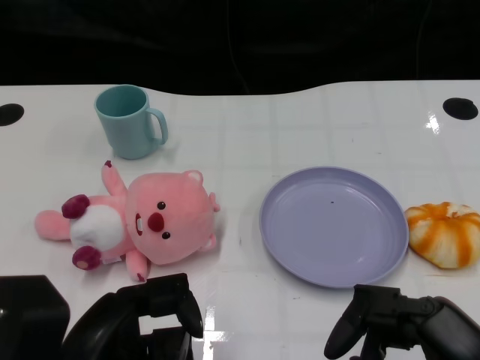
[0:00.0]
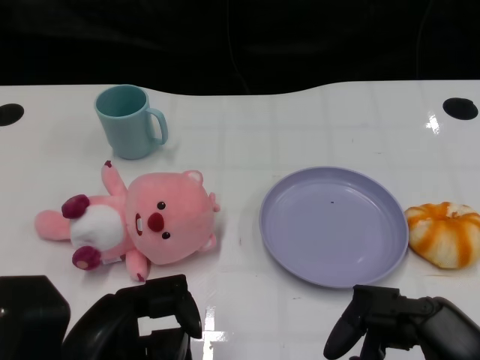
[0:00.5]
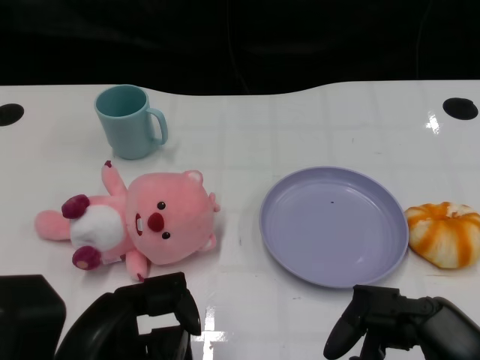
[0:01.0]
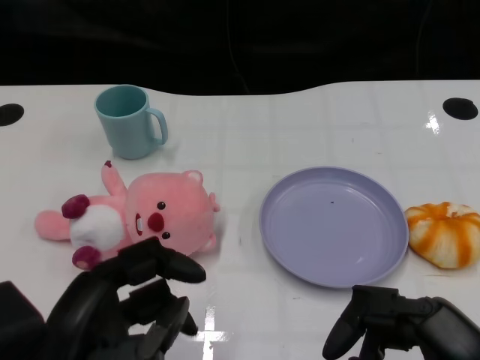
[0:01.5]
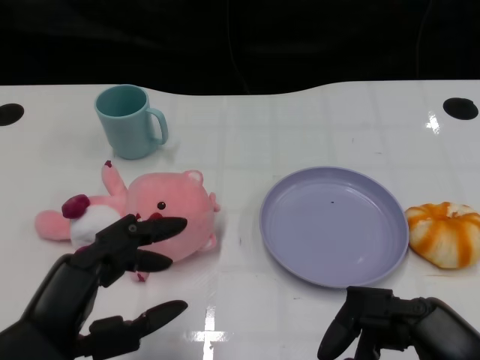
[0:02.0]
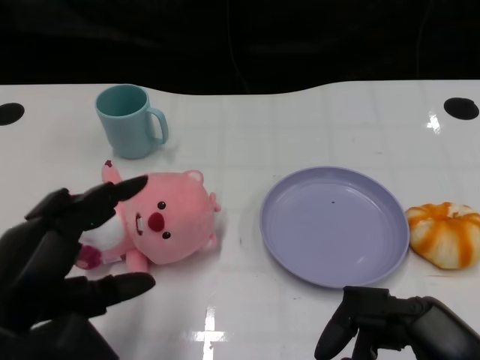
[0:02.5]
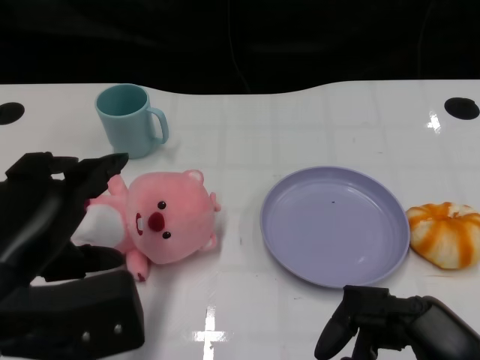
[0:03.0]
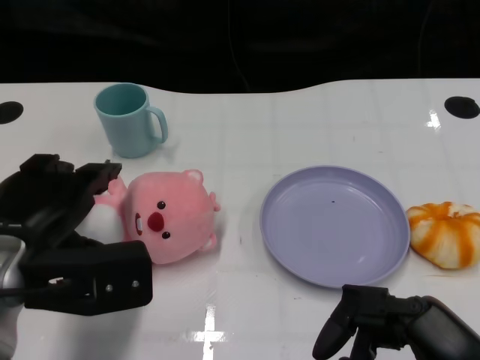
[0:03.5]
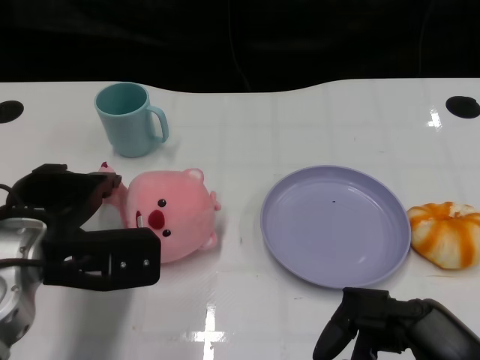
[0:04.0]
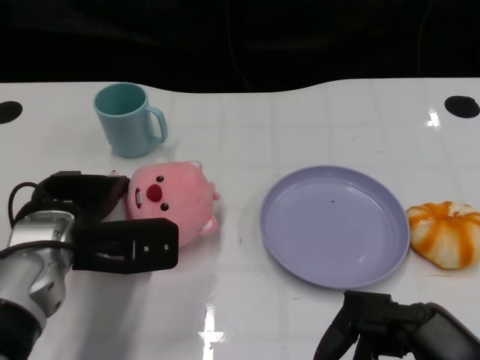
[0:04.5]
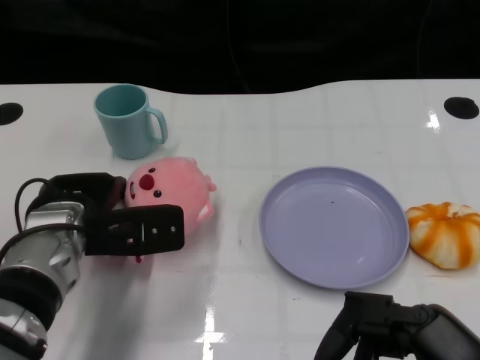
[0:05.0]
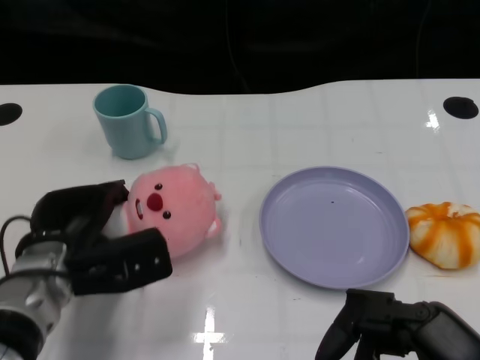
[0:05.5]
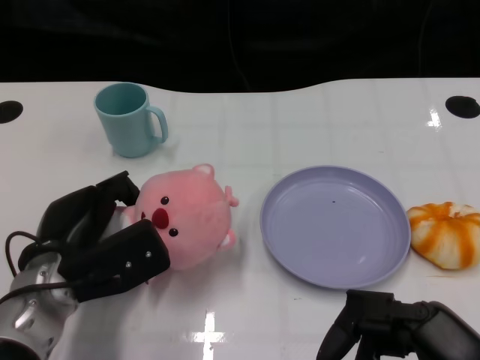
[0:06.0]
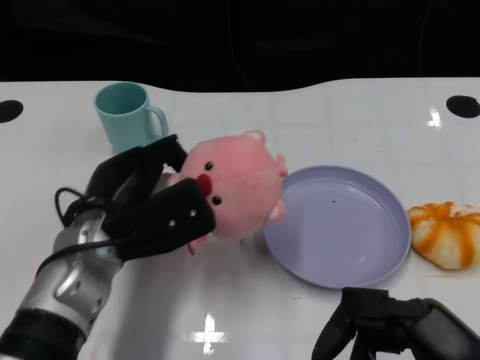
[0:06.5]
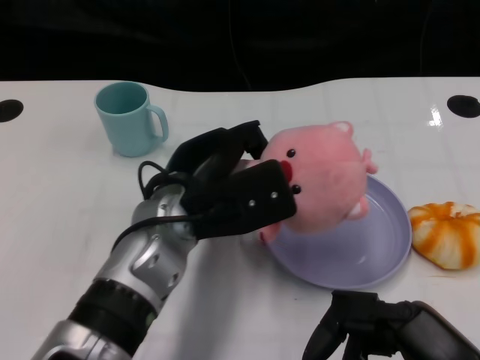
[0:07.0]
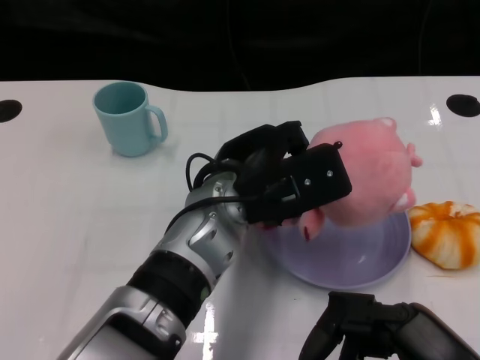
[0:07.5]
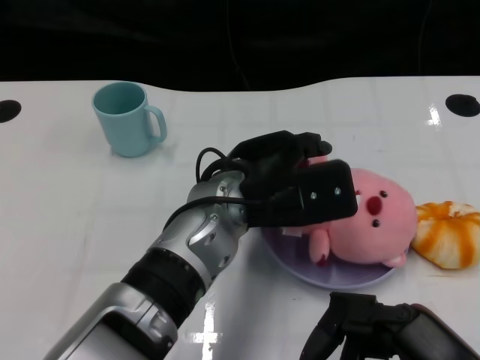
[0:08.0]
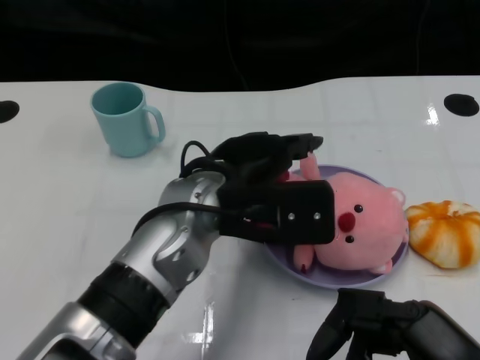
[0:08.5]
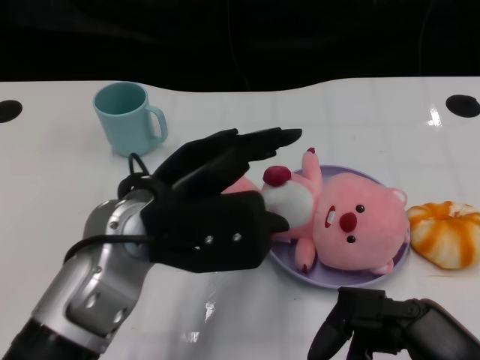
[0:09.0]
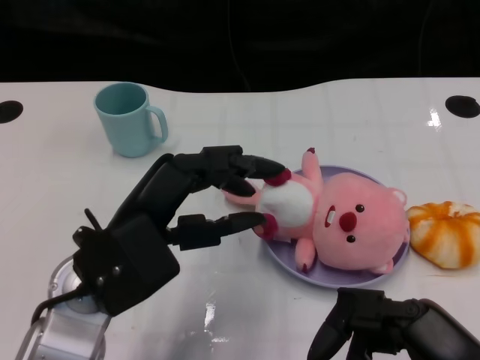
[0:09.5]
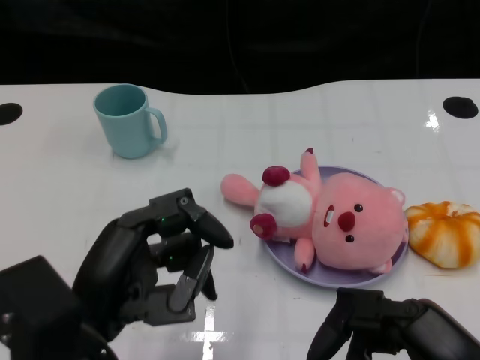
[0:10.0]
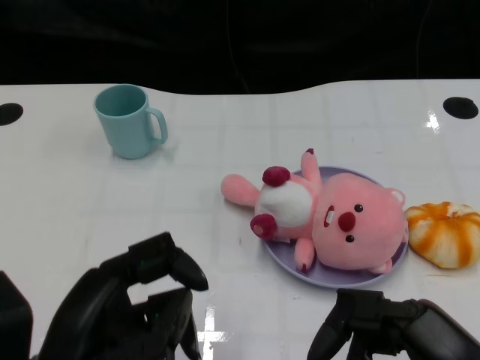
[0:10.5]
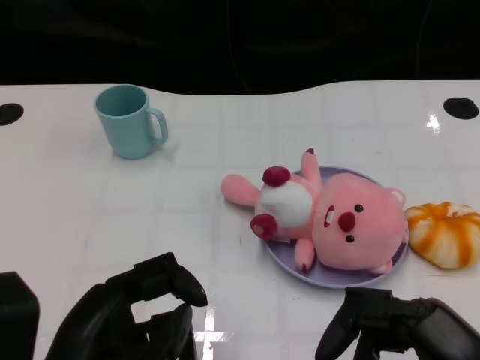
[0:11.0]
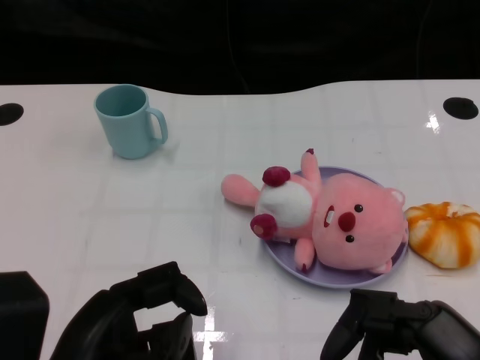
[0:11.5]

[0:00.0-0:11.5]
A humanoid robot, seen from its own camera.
Task of the whole recording: Pick up the doll on one side of the plate and place it into the plate.
Step, 0:01.0 to 0:06.0: Grasp the pink doll with the left gripper.
Step, 0:06.5 to 0:08.0: Place the pink doll into the plate with the left gripper.
0:02.0 to 0:04.0: The left hand shifts roughly 15 cm forward.
0:04.0 to 0:06.0: The left hand moves downward, roughly 5 cm.
0:06.0 to 0:07.5: The left hand heads to the right and upward, covering about 20 cm.
0:07.5 to 0:09.5: The left hand moves to the left and backward, some 15 cm.
0:09.5 to 0:11.5: The left hand moves backward, approximately 10 cm.

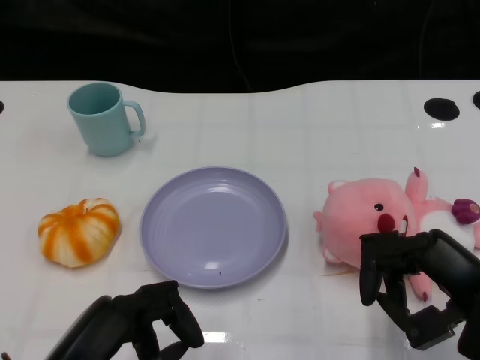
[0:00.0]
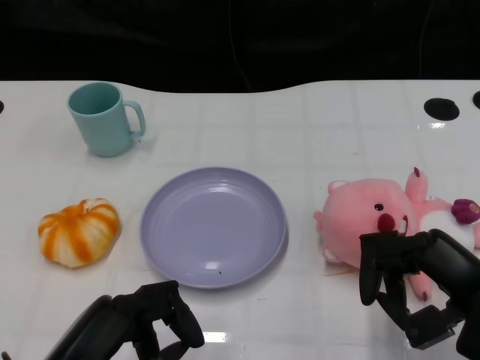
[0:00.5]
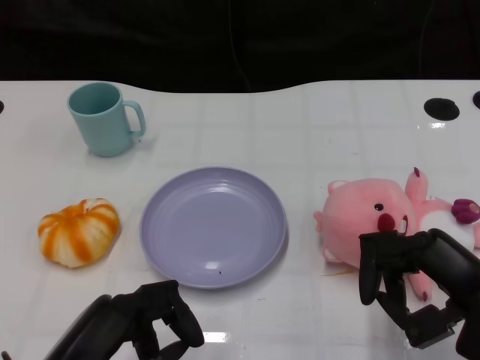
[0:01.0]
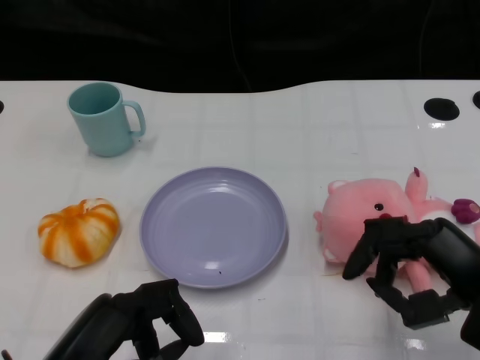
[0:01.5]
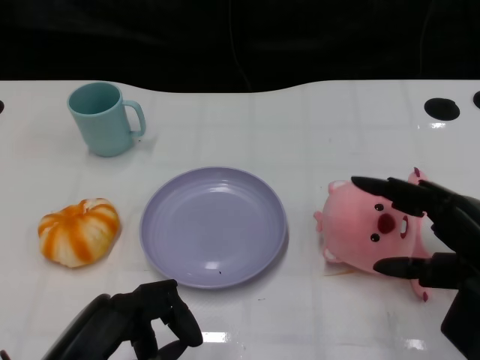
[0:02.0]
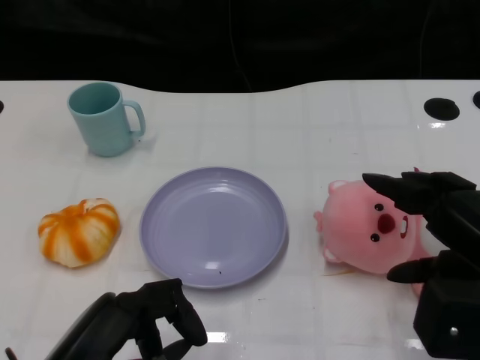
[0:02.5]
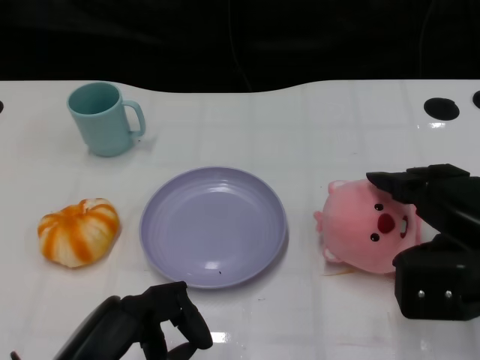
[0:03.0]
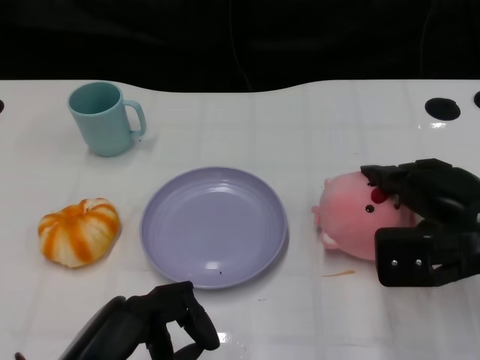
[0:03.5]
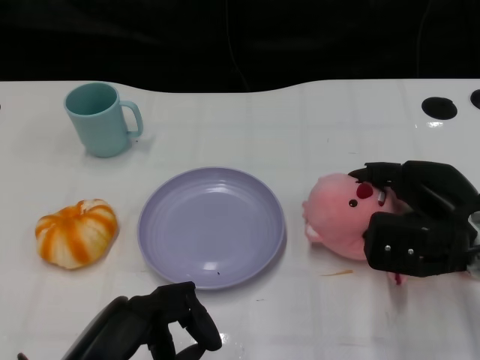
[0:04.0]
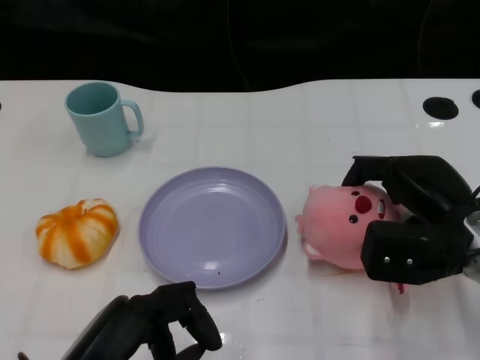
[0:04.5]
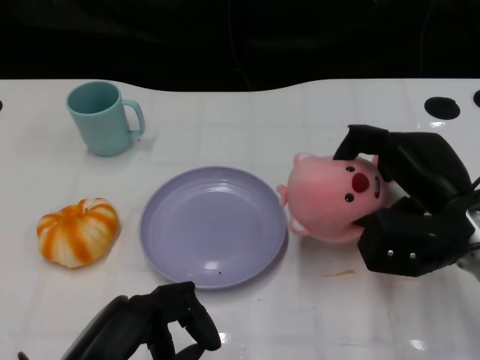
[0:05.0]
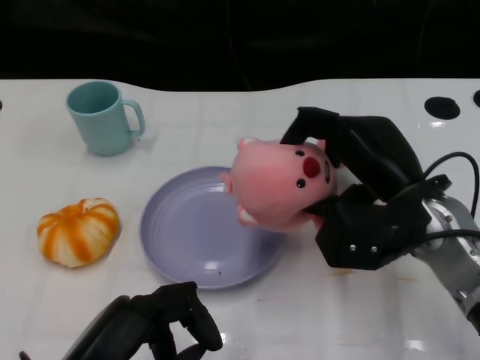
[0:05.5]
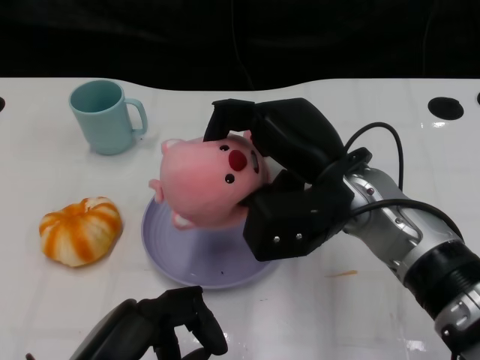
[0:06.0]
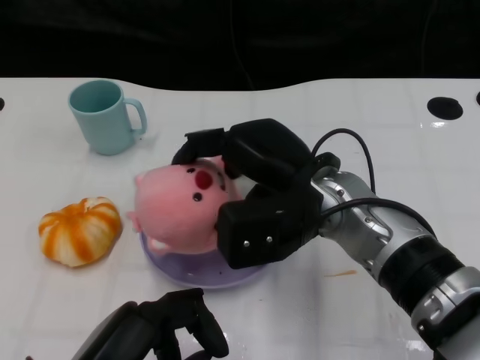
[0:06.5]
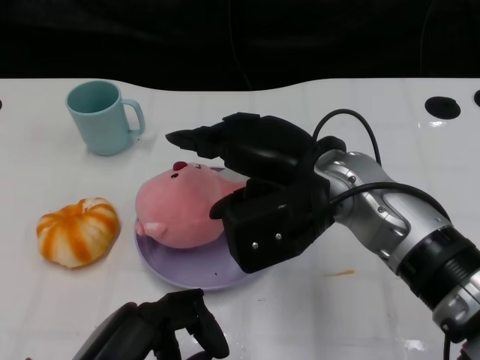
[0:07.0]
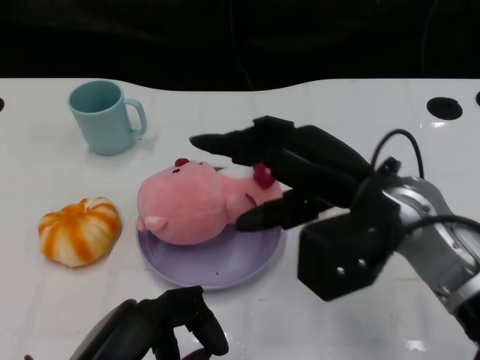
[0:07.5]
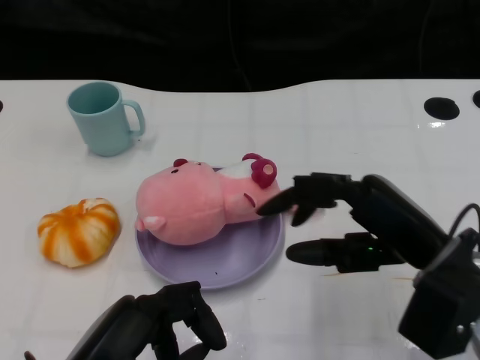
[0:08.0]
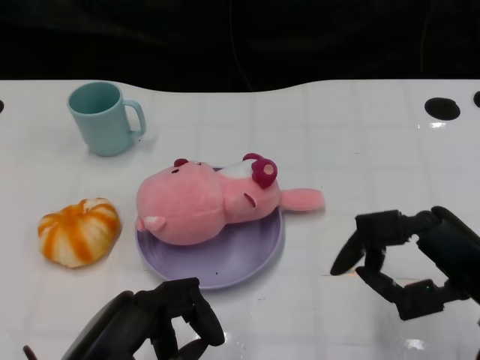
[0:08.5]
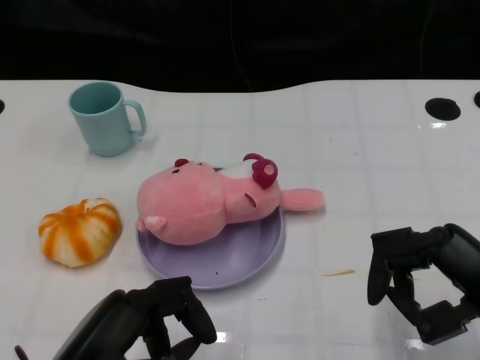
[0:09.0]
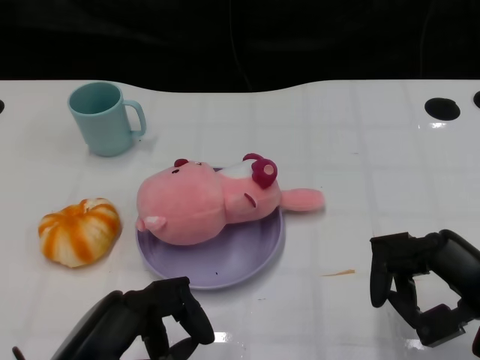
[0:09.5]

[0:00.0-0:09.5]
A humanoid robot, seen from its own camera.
Task of the whole recording: Pick up the doll on the other side of the plate and place it into the plate.
Step, 0:01.5 to 0:05.5: Grasp the pink doll with the right gripper.
Step, 0:06.0 to 0:07.0: Place the pink doll into the plate with the right gripper.
0:02.0 to 0:04.0: The right hand travels forward by about 10 cm.
0:04.0 to 0:05.5: The right hand shifts approximately 5 cm to the left.
0:07.5 to 0:09.5: The right hand travels to the right, backward and downward by roughly 15 cm.

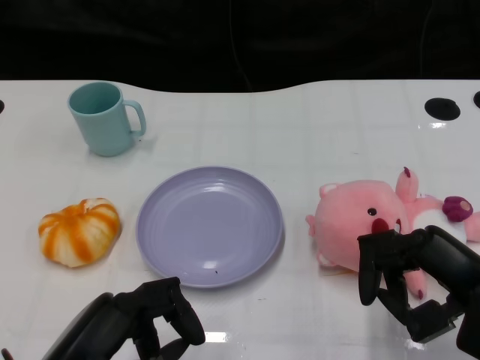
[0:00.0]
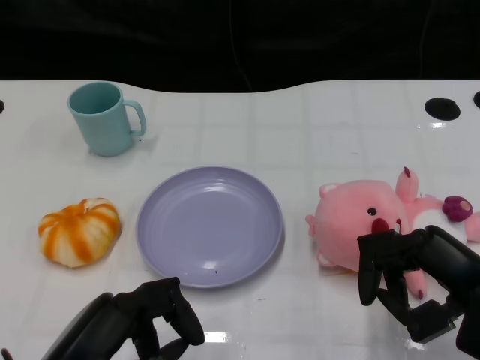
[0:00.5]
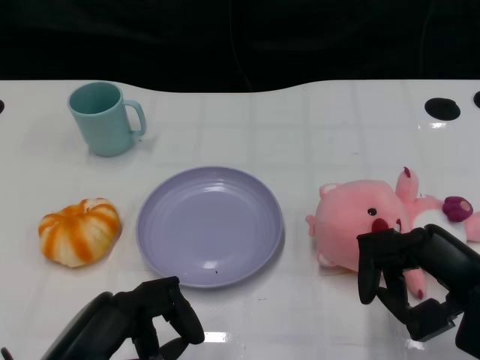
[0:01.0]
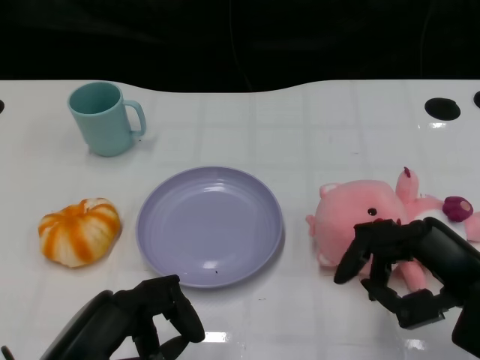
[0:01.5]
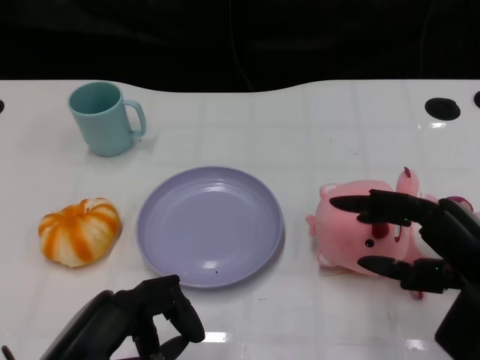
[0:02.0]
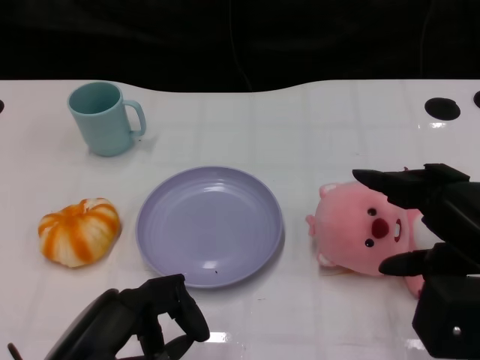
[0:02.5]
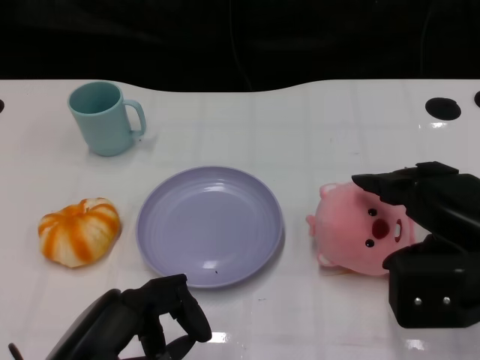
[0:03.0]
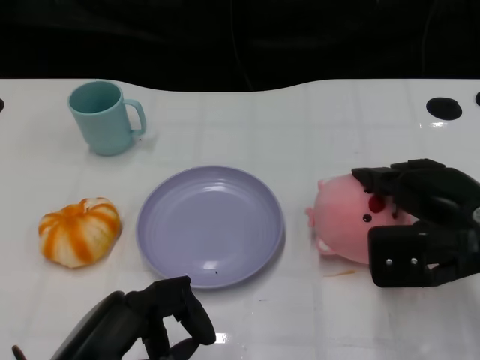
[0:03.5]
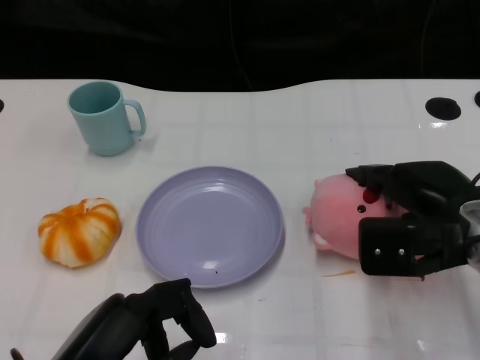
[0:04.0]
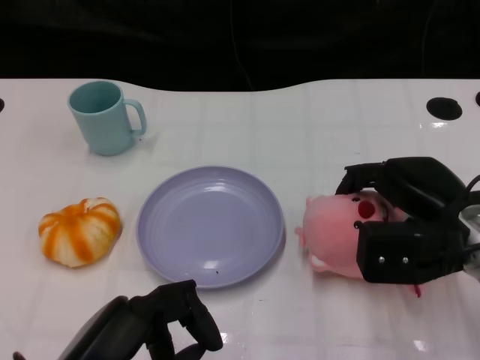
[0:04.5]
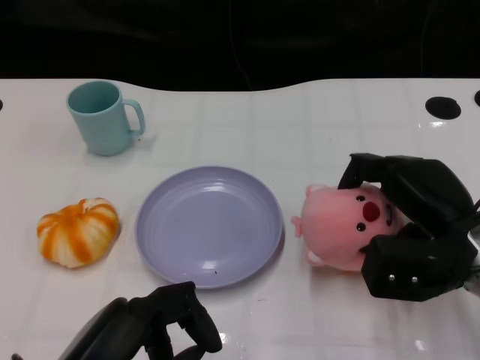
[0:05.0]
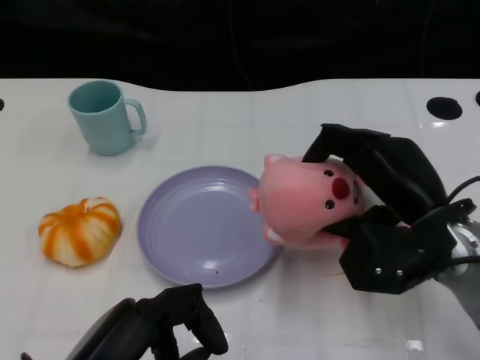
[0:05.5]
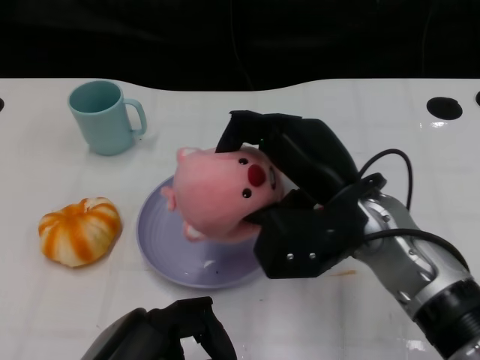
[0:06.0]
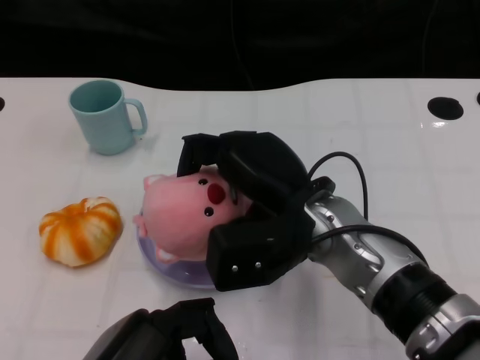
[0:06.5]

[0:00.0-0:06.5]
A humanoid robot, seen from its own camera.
Task of the whole recording: Pick up the doll on the other side of the plate and place it into the plate.
Step, 0:01.5 to 0:05.0: Grasp the pink doll with the right gripper.
0:02.0 to 0:04.5: The right hand goes approximately 10 cm forward.
0:04.5 to 0:06.5: The right hand is displaced to the left by approximately 15 cm.
